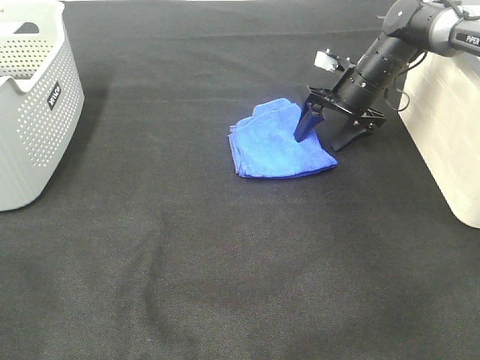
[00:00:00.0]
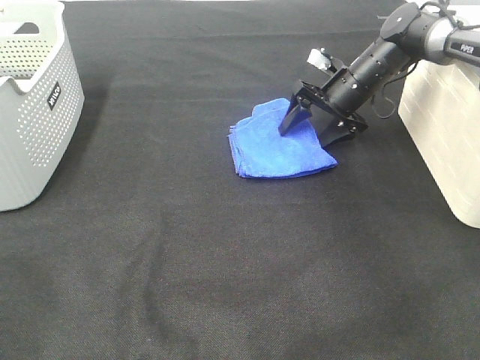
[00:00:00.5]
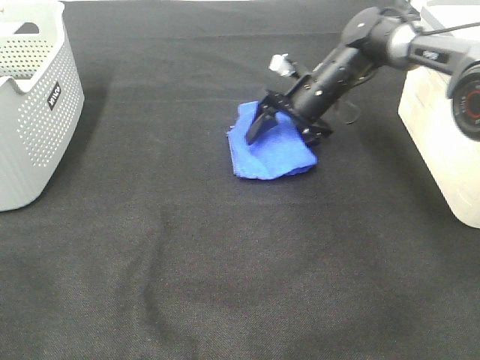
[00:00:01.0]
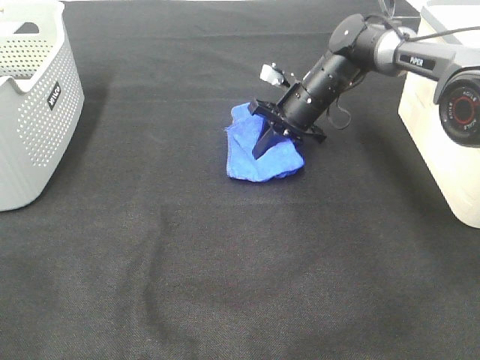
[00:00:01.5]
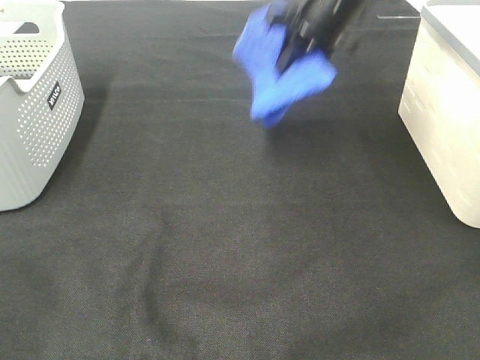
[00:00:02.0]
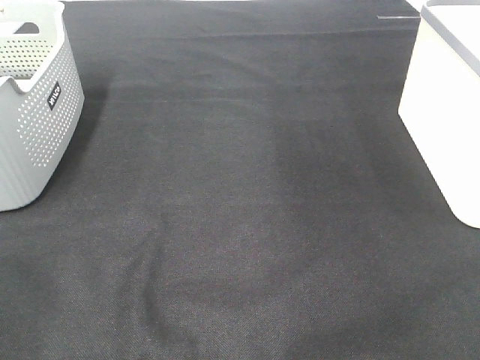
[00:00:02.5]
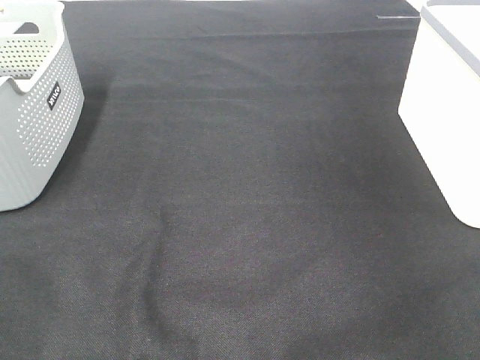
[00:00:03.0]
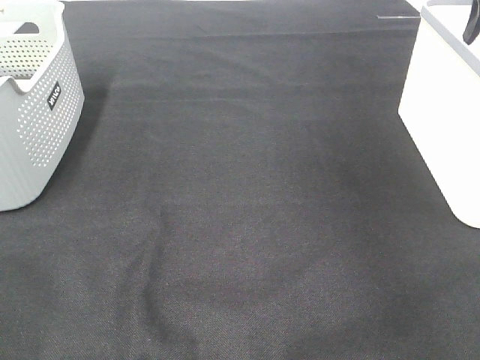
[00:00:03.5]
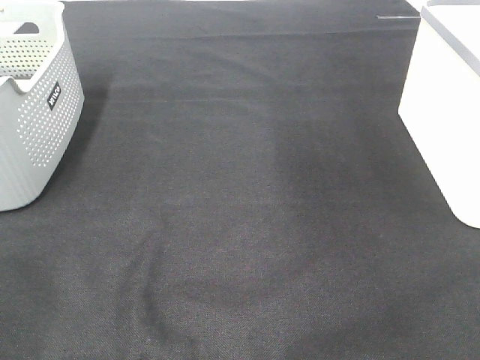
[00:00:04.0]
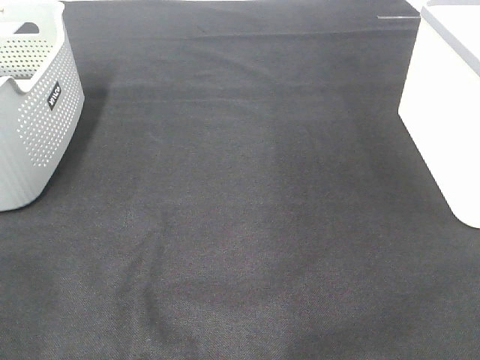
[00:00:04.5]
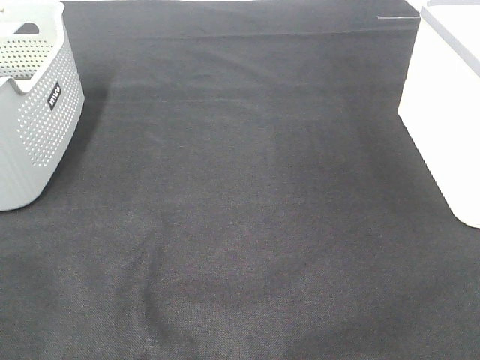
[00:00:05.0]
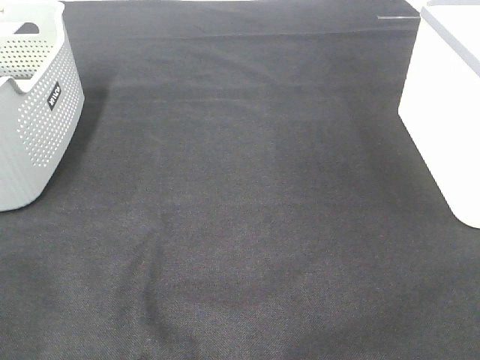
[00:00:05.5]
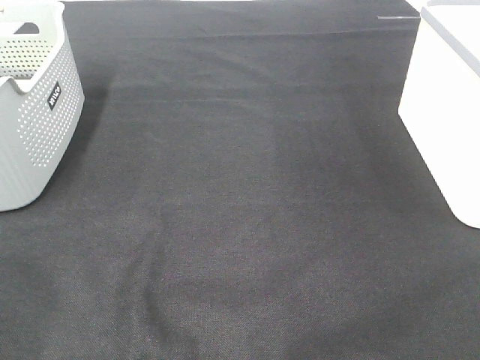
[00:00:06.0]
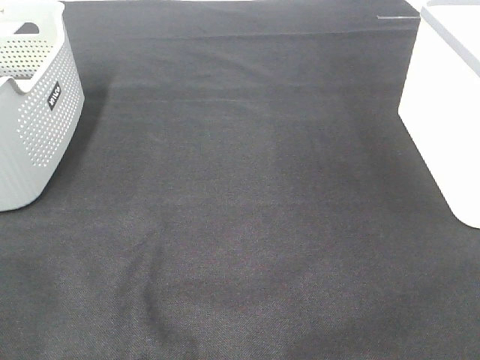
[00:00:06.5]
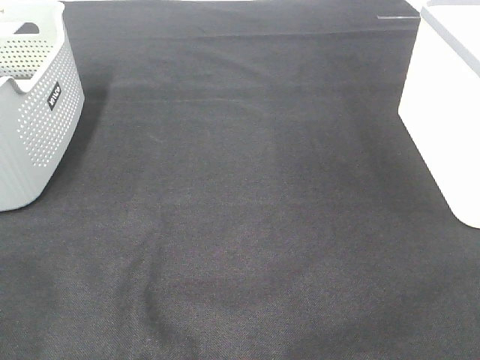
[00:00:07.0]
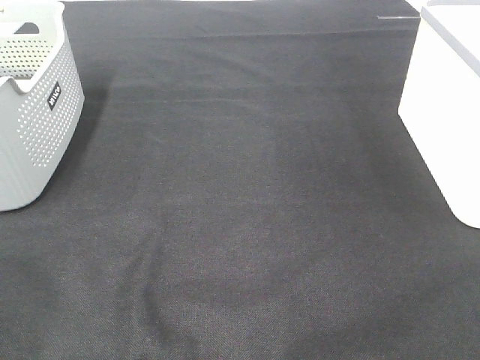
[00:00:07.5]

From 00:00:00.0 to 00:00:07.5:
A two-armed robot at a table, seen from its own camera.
Step, from 00:00:01.5 to 00:00:03.0: Right hand: place the blue towel in right basket.
From 00:00:00.0 to 00:00:02.0: The right gripper travels upward by approximately 15 cm, and closes its fingers.
From 00:00:02.0 to 00:00:04.0: The right gripper travels to the right, upward and backward by roughly 20 cm, and opens up.
From 00:00:05.5 to 00:00:07.5: Both grippers stay put.

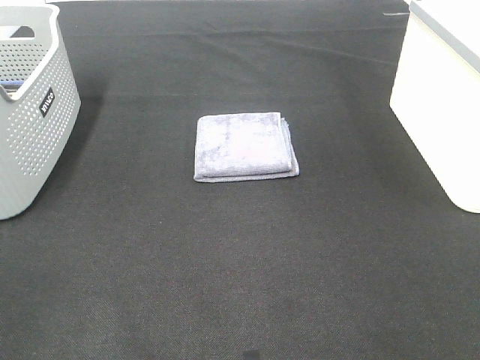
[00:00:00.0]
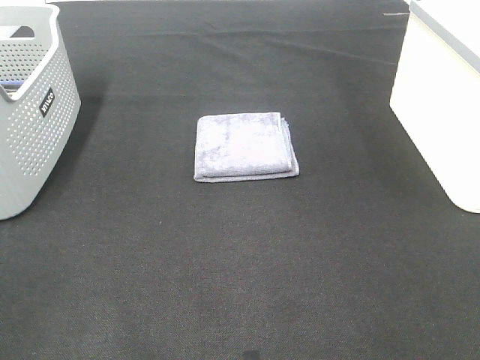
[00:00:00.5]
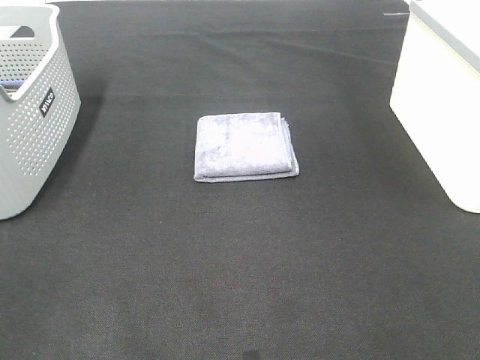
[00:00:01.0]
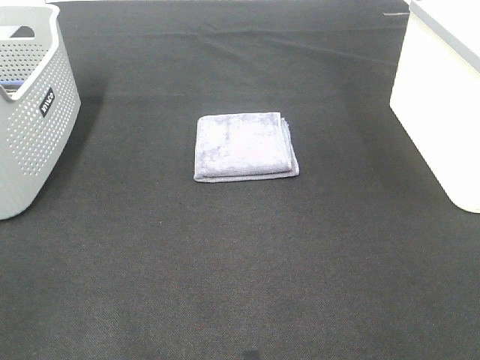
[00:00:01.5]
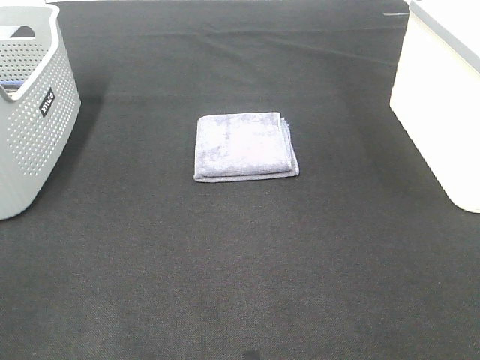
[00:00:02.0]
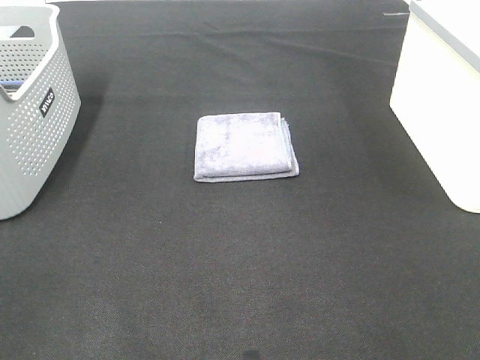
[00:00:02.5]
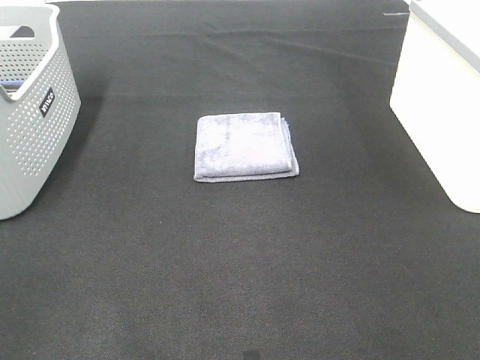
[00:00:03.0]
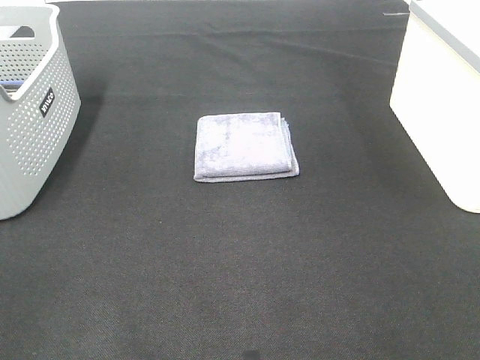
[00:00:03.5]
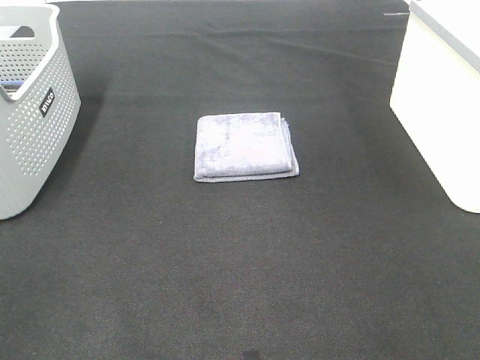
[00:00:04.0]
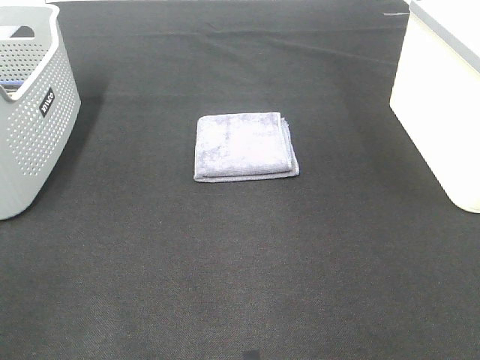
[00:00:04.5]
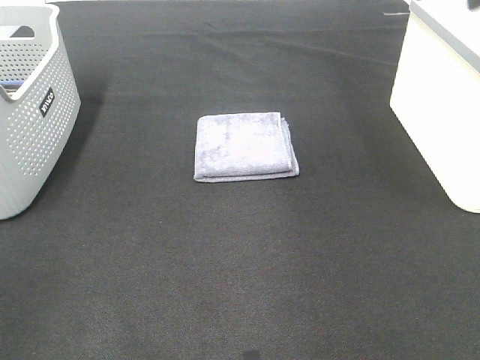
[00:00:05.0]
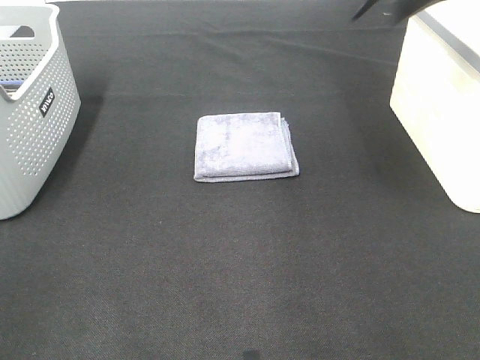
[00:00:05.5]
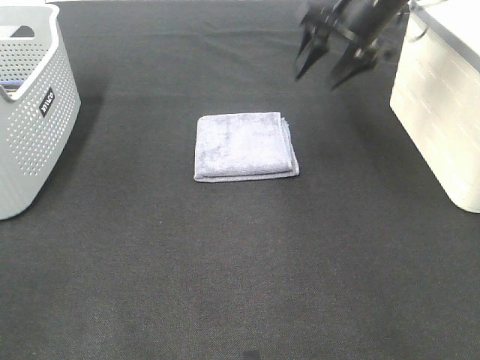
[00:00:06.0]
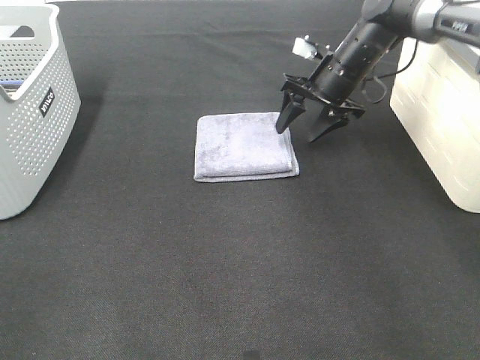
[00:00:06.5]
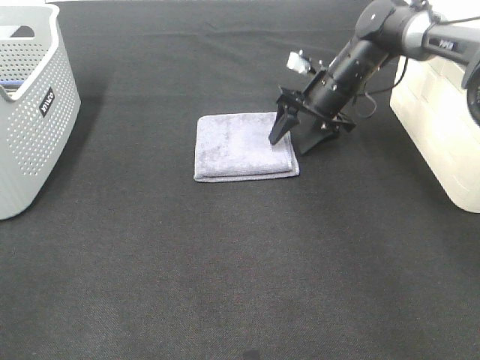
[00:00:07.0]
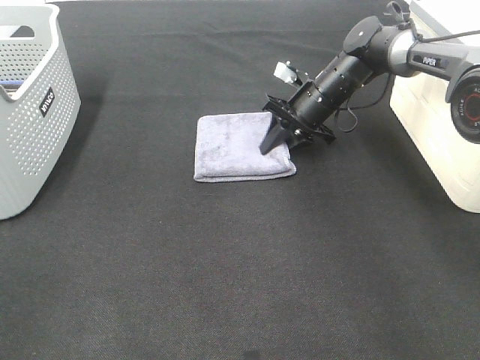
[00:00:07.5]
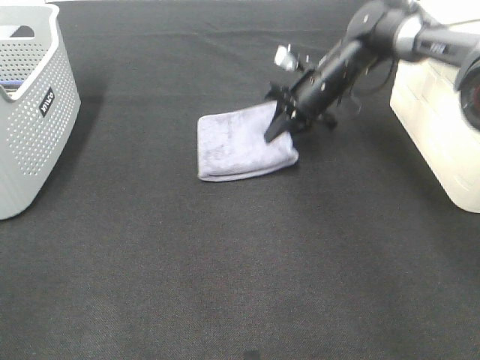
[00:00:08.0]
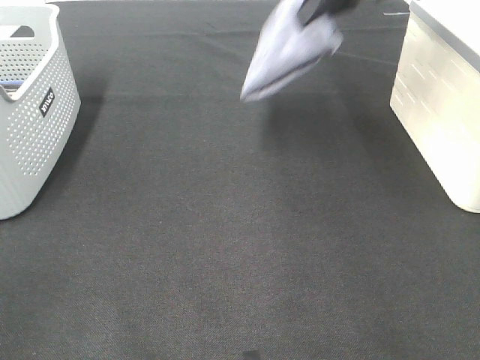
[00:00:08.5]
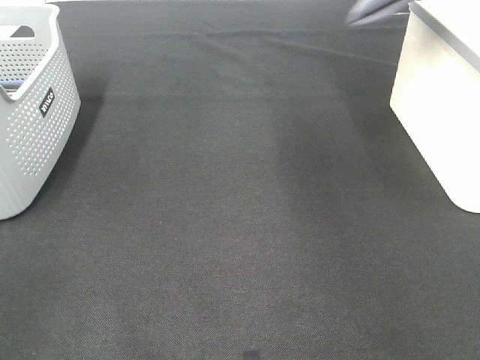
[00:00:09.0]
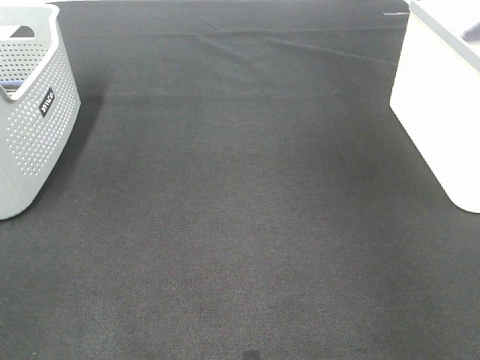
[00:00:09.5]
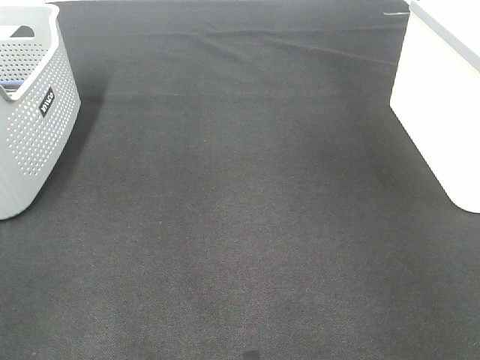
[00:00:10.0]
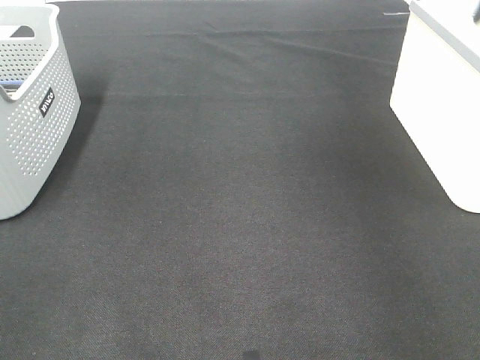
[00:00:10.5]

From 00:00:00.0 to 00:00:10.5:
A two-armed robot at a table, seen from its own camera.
Step, from 00:00:00.0 to 00:00:07.5: Right hand: grab the folded grey towel.
Step, from 00:00:08.0 to 00:00:10.0: Right hand: place the grey towel in right basket.
From 00:00:00.0 to 00:00:02.0: Both grippers stay put.
From 00:00:04.0 to 00:00:06.5: The right gripper heads forward, covering roughly 50 cm.
From 00:00:06.5 to 00:00:08.5: The right gripper travels upward by approximately 20 cm, and closes.
From 00:00:08.5 to 00:00:10.5: The right gripper travels to the right by about 20 cm, and opens its fingers.
